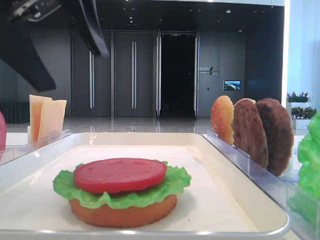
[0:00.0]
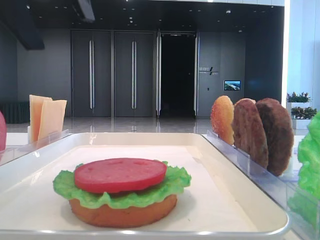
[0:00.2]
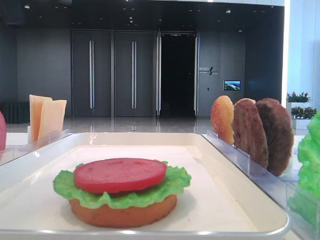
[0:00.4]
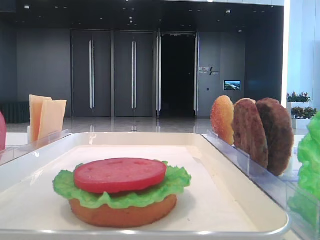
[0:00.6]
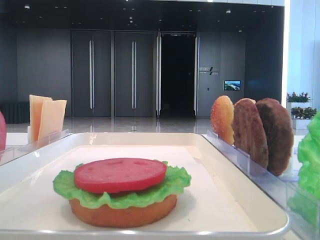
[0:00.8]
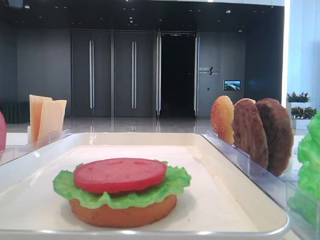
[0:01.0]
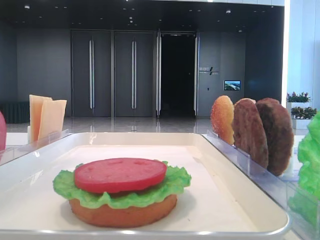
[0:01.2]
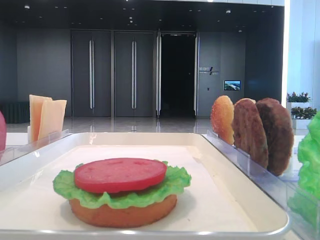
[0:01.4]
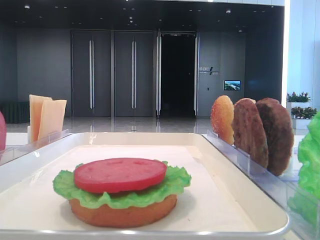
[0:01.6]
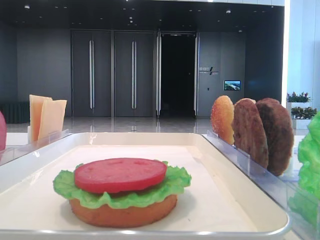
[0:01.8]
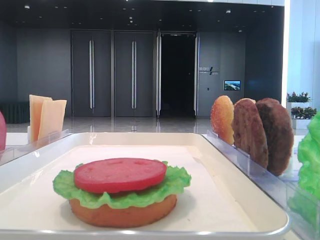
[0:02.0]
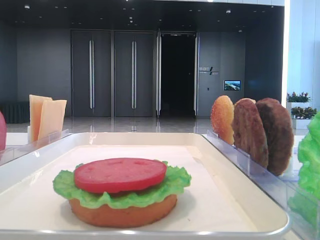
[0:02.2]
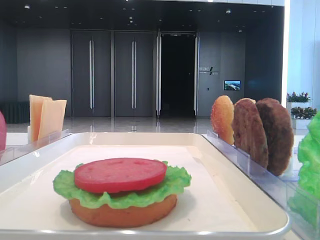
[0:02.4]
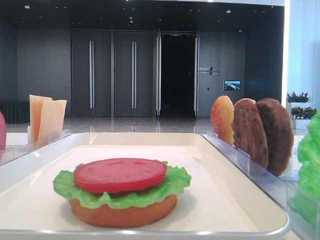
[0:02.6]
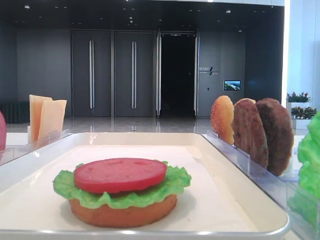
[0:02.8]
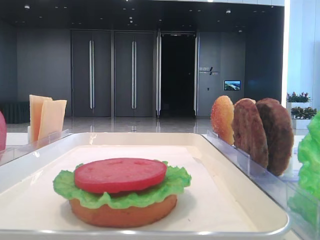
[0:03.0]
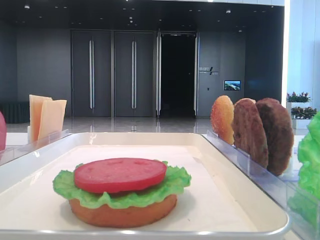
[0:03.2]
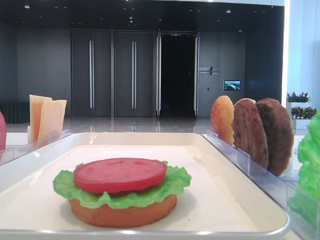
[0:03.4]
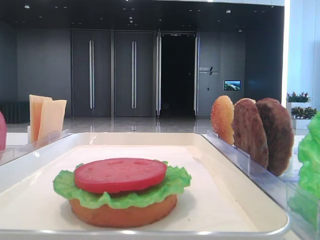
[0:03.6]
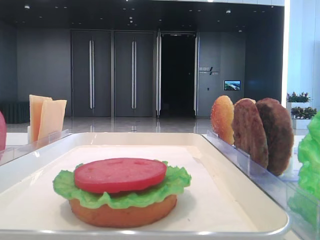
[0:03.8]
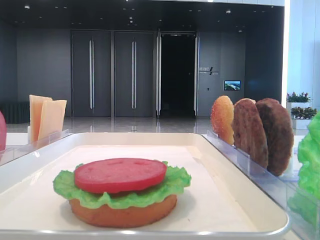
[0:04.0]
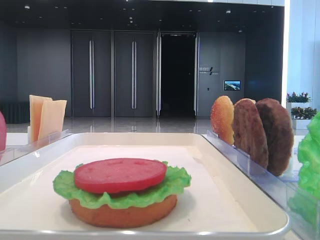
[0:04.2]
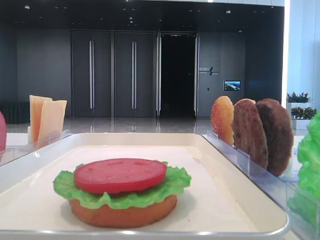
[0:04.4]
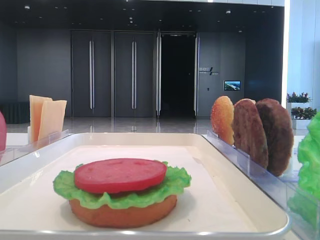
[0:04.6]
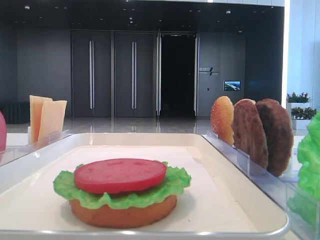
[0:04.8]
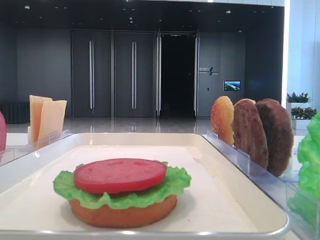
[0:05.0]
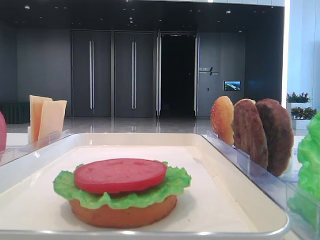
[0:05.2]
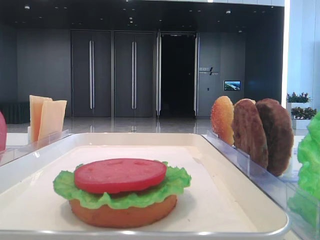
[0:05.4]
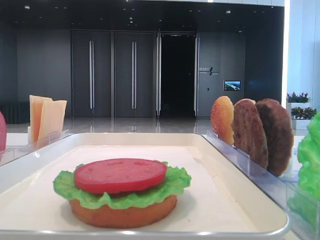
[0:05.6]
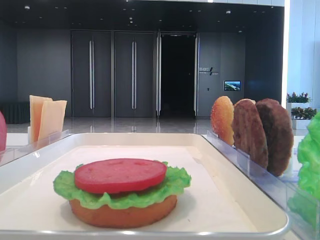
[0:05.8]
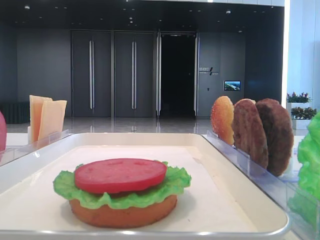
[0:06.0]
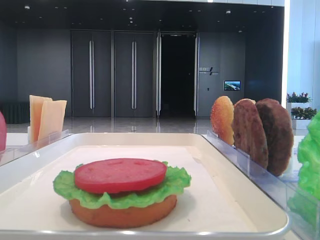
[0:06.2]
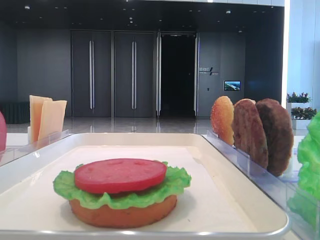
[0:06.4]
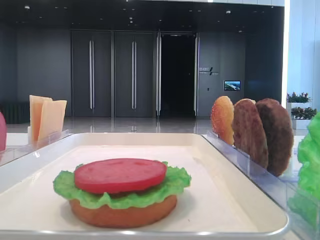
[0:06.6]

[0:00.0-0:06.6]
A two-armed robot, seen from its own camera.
0:00.0 to 0:01.6: The left gripper shifts roughly 15 cm to the left and upward.

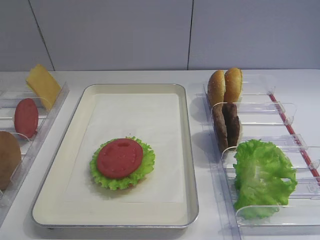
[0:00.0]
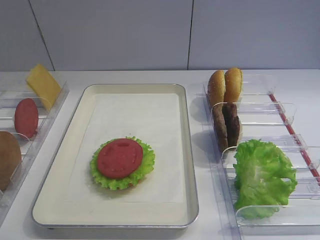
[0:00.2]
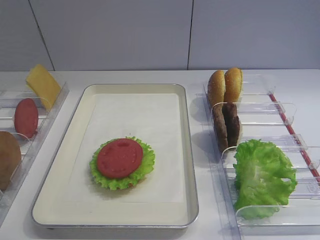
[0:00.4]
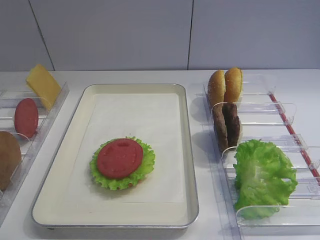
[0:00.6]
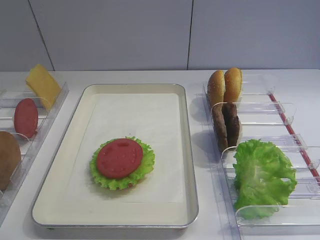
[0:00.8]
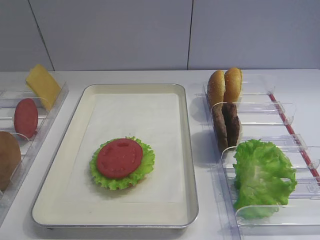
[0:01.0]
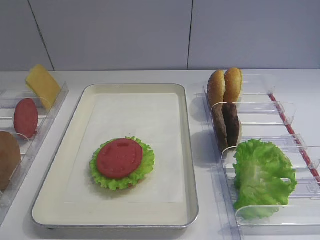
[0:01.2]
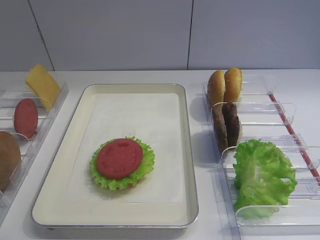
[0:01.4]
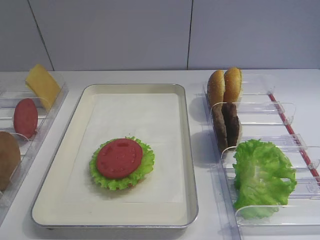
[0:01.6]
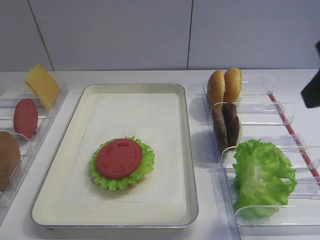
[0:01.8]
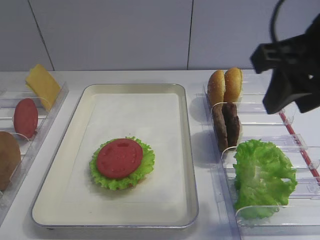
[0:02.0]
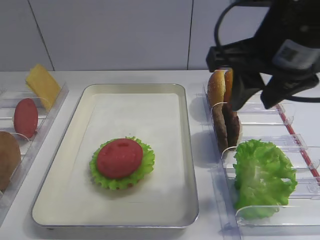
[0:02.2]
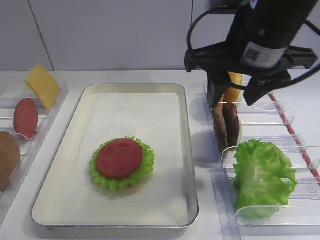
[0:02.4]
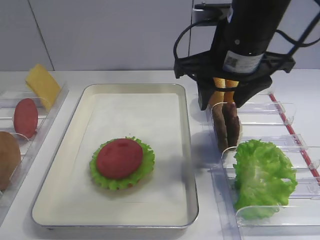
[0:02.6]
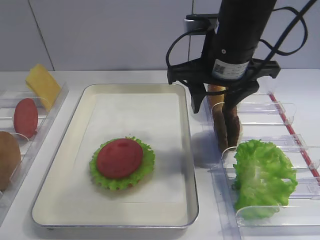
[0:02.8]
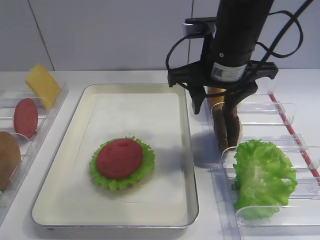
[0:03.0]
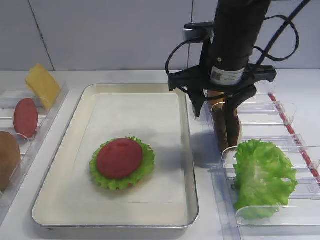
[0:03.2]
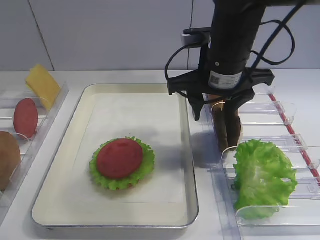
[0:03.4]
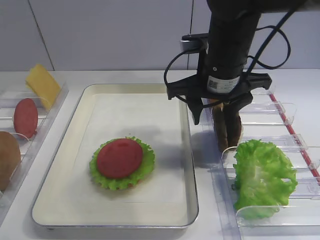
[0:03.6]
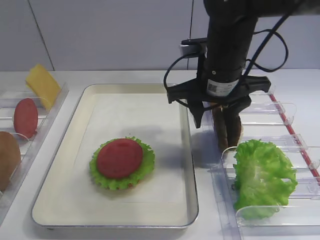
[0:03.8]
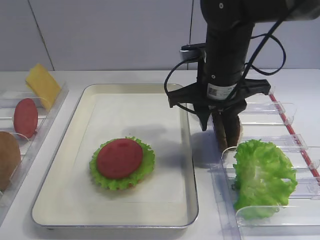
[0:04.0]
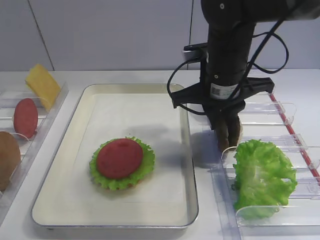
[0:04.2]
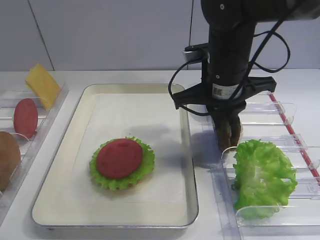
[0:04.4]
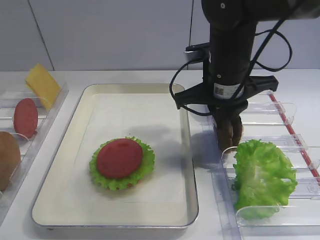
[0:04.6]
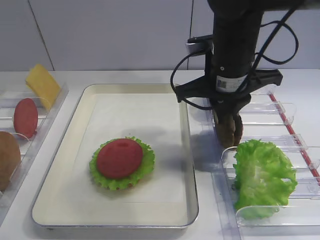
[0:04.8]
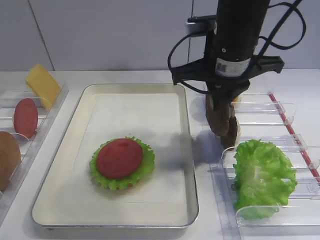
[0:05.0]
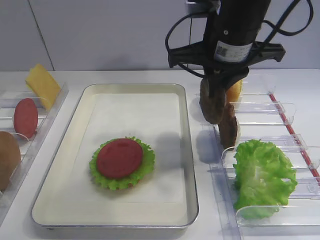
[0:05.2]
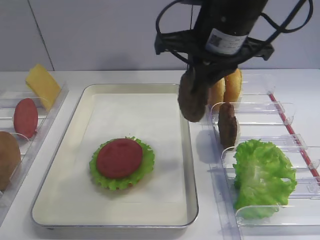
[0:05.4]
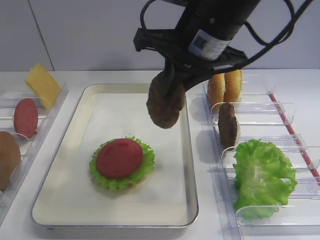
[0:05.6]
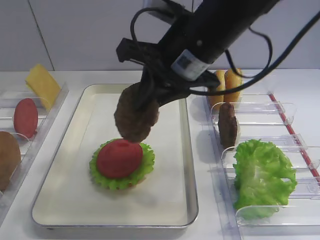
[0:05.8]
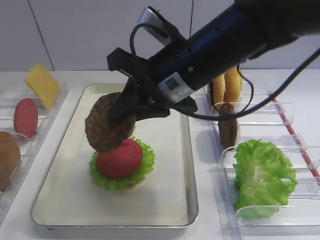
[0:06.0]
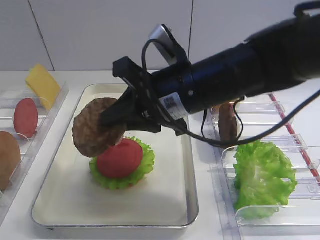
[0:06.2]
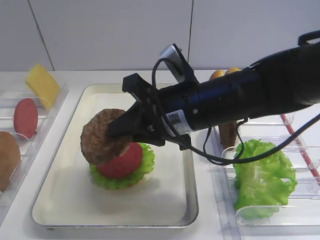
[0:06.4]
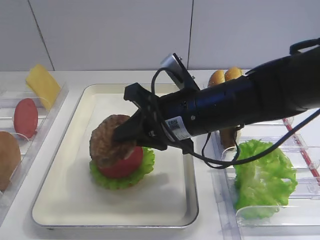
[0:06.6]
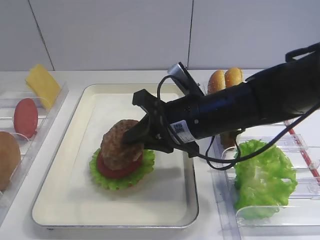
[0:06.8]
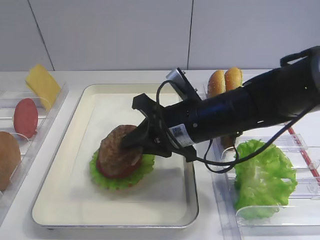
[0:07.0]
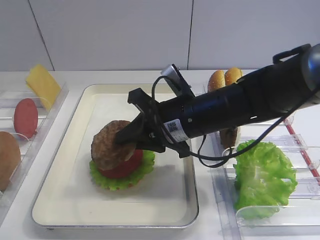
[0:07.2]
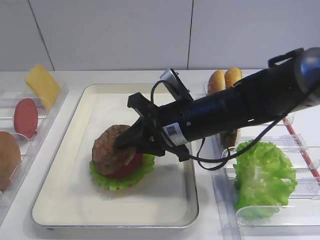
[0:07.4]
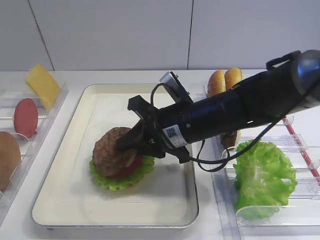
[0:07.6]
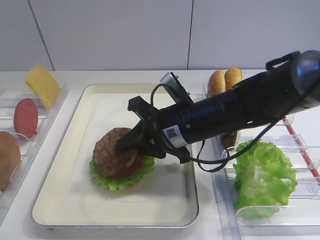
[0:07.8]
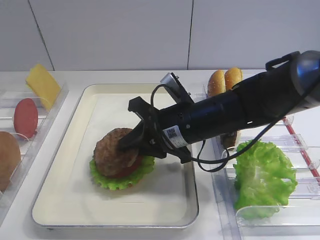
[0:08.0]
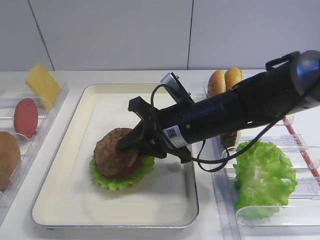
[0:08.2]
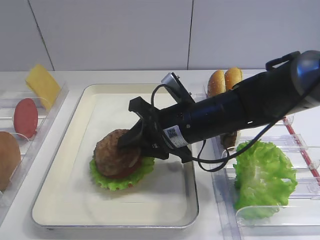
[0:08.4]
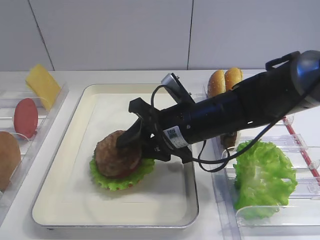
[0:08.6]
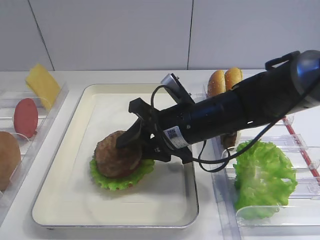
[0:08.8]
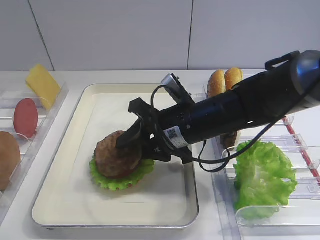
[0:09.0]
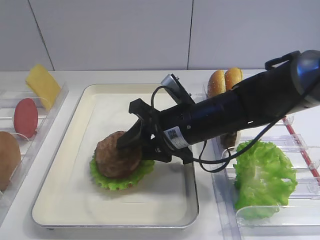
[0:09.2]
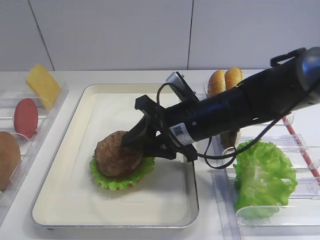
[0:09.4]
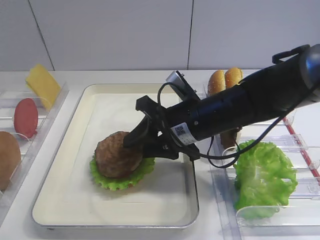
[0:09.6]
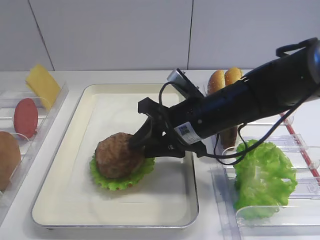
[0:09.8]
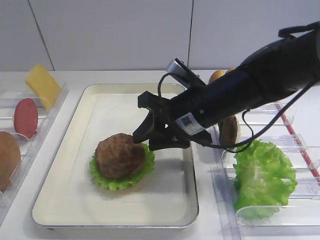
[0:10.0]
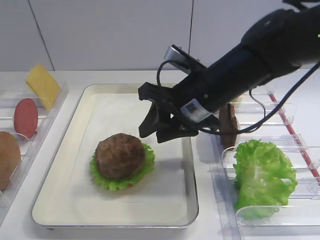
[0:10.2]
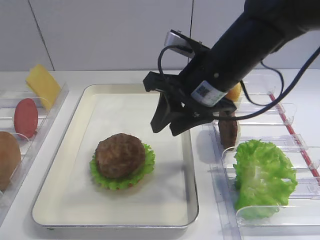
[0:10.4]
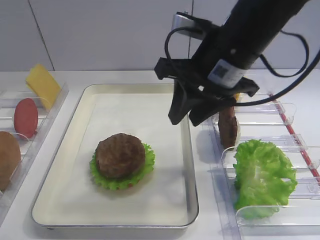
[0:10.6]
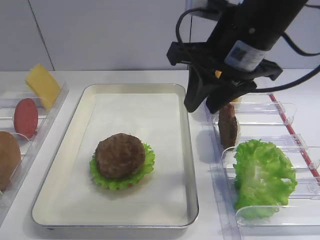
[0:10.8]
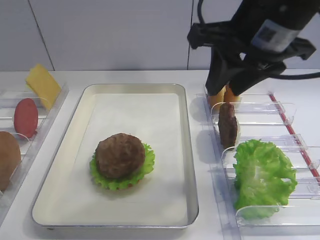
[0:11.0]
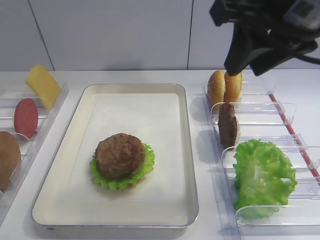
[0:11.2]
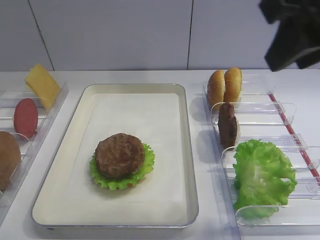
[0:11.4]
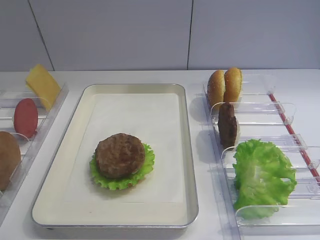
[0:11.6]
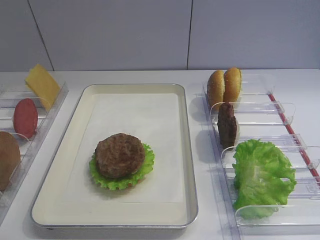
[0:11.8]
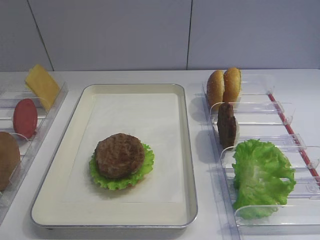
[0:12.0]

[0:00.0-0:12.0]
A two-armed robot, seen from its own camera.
Step, 0:00.0 to 0:05.2: Pick up the cutlet with the right gripper.
Step, 0:05.4 to 0:10.2: Place the cutlet on the tomato slice with the right gripper.
0:01.6 to 0:03.0: The right gripper shifts roughly 25 cm forward, to the left and downward.
0:03.0 to 0:04.4: The right gripper closes up.
0:04.4 to 0:06.0: The right gripper is displaced backward by roughly 5 cm.
0:06.0 to 0:07.6: The right gripper heads downward, covering roughly 10 cm.
0:07.6 to 0:09.0: The right gripper opens up.
0:09.0 to 0:10.4: The right gripper goes about 10 cm upward.
0:10.4 to 0:12.0: The right gripper travels backward, to the right and upward by some 30 cm.

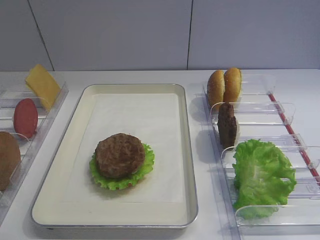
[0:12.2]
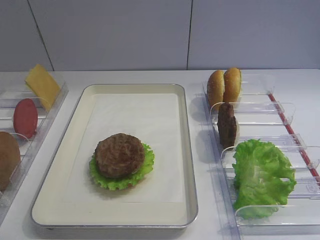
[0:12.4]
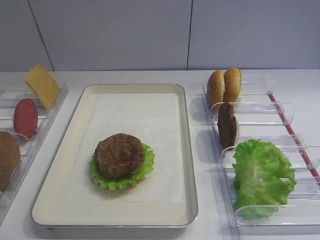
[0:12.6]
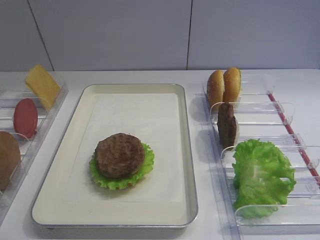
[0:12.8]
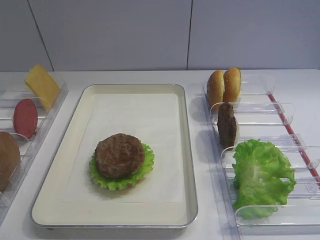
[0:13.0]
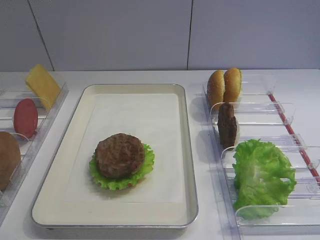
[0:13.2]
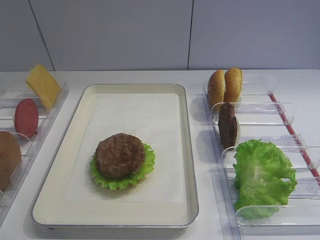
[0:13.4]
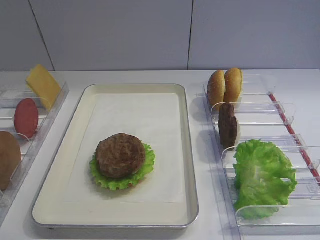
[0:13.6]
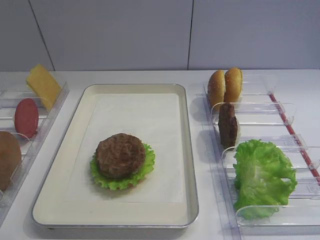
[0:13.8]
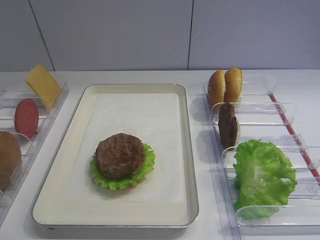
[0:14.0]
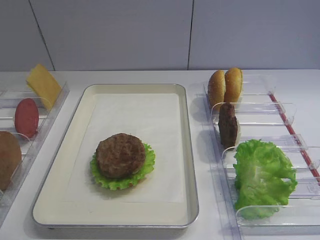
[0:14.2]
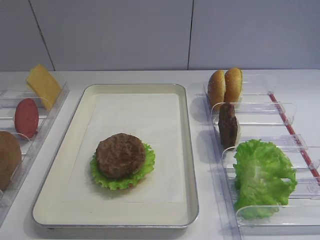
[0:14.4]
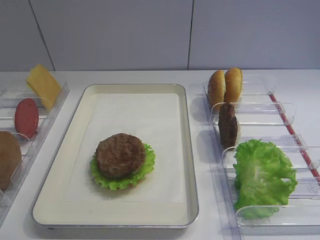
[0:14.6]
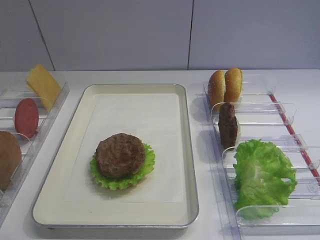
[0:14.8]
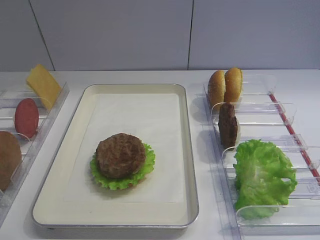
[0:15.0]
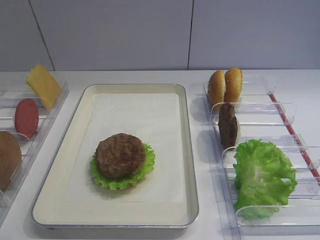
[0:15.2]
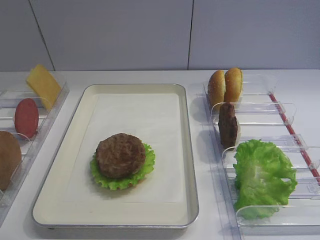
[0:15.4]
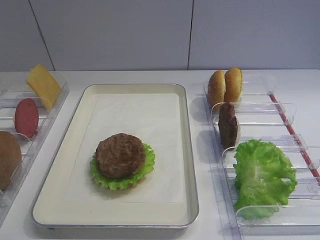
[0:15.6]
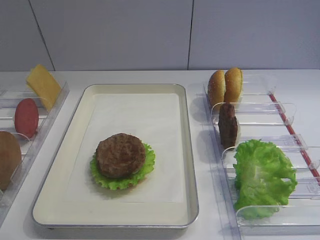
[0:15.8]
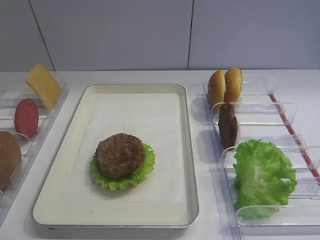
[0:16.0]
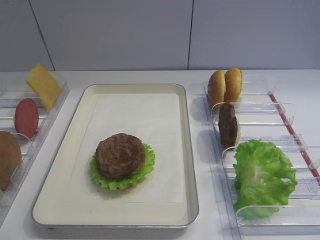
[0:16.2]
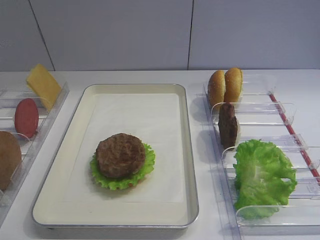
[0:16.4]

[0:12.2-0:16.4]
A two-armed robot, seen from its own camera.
0:13.6 to 0:16.4: Neither gripper changes place.
